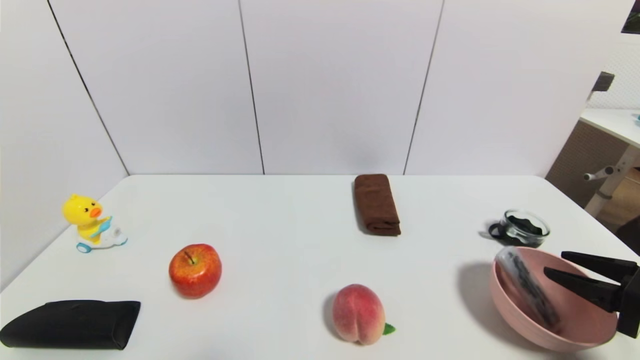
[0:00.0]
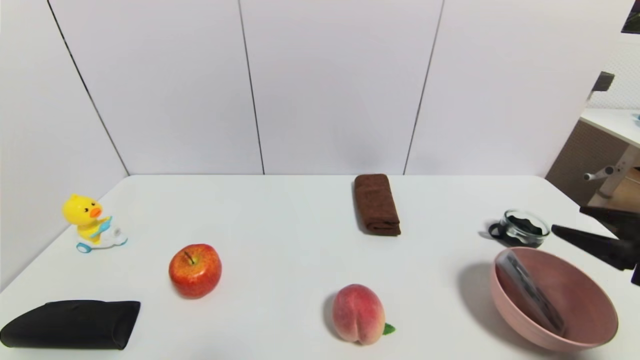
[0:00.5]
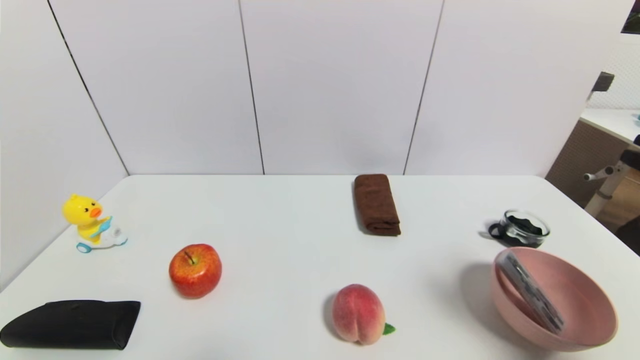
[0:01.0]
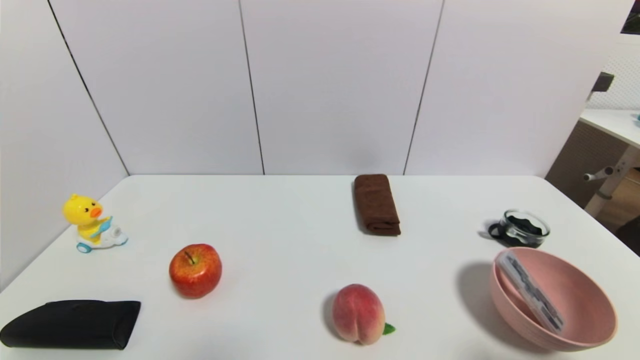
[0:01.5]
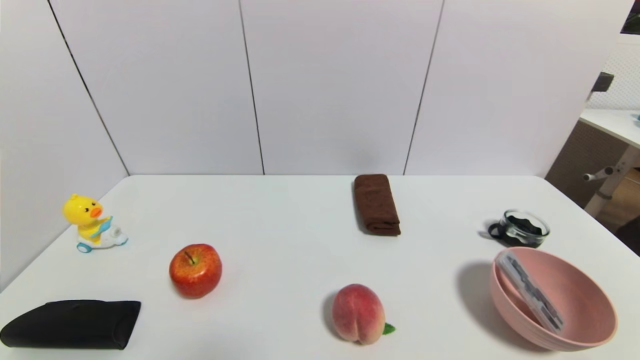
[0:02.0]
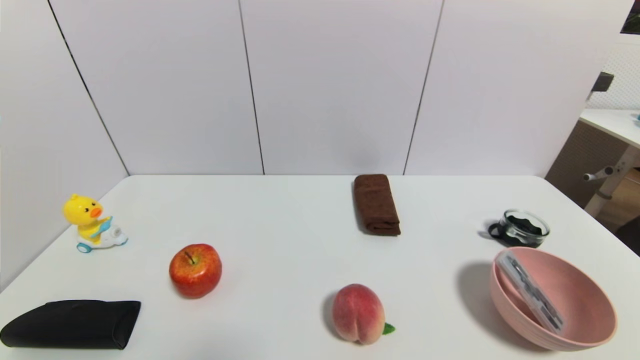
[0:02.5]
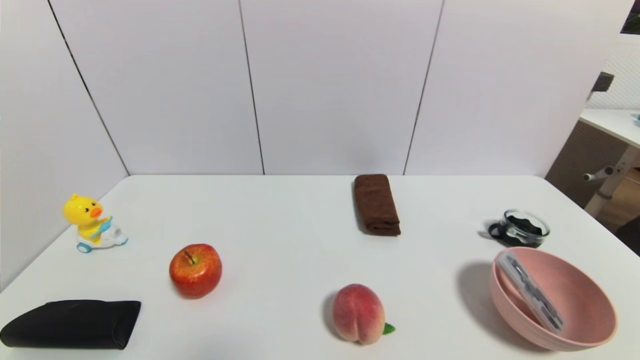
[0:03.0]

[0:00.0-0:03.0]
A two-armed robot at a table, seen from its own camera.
Task of the whole recording: use a gripper to pick the target object and place on the pink bowl.
0:00.0 to 0:01.5: The right gripper heads backward and upward, covering roughly 15 cm, and opens.
0:01.5 to 0:03.0: The right gripper moves downward, some 15 cm.
